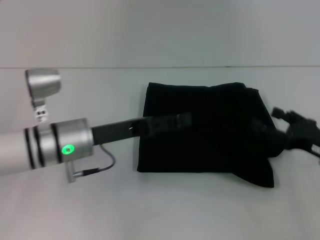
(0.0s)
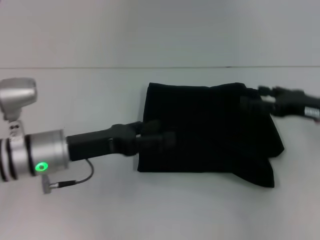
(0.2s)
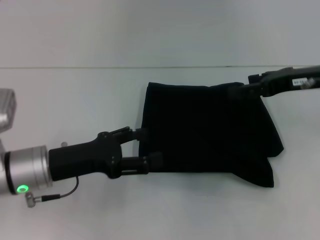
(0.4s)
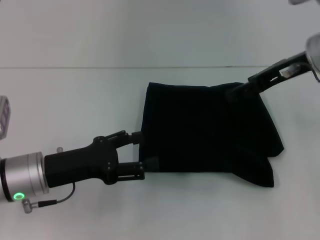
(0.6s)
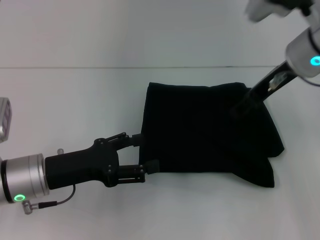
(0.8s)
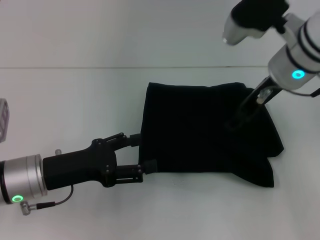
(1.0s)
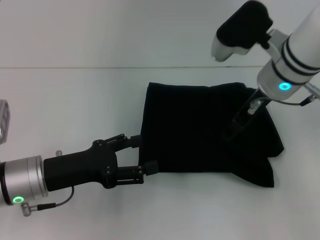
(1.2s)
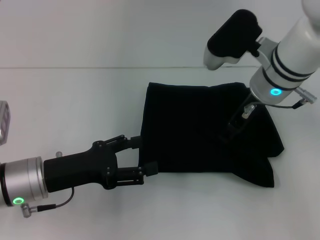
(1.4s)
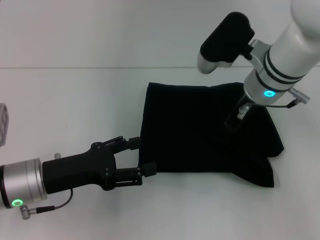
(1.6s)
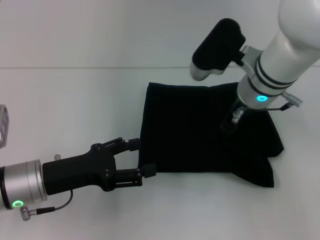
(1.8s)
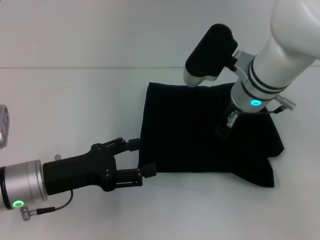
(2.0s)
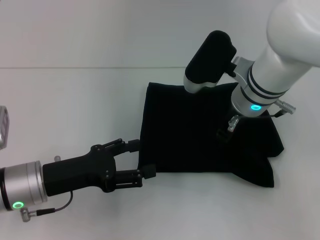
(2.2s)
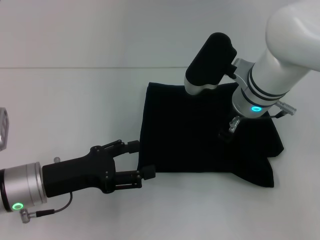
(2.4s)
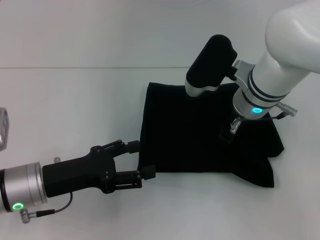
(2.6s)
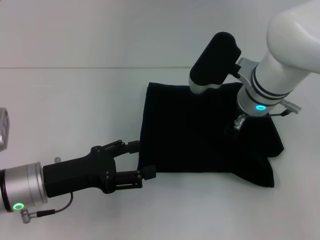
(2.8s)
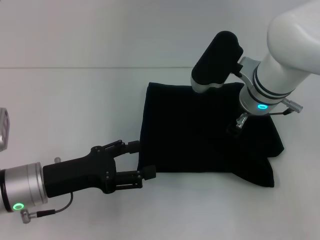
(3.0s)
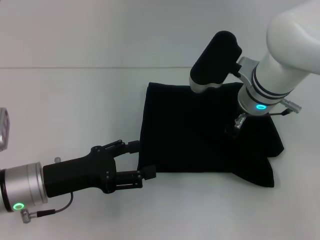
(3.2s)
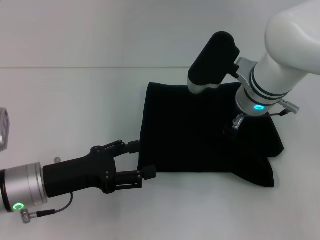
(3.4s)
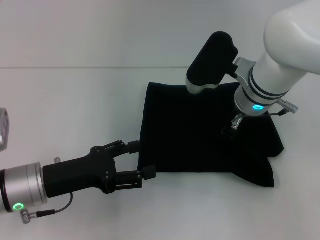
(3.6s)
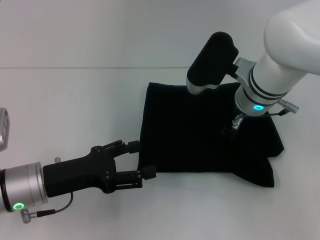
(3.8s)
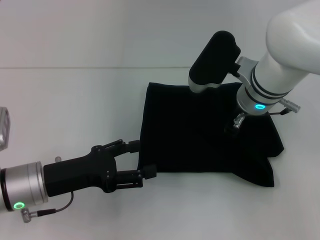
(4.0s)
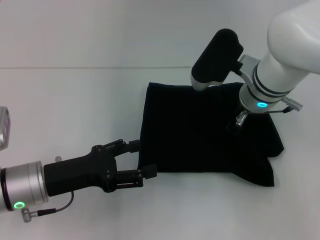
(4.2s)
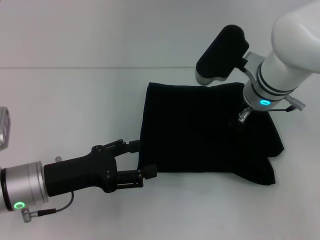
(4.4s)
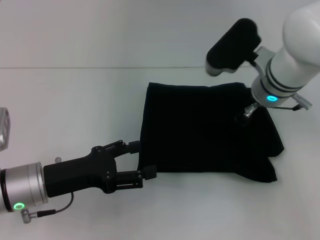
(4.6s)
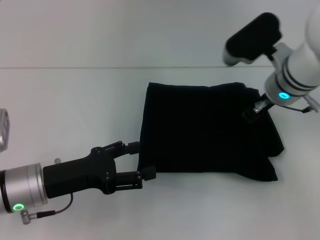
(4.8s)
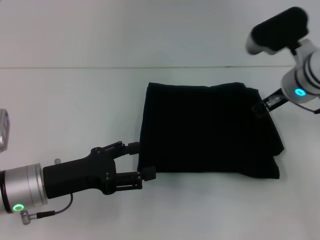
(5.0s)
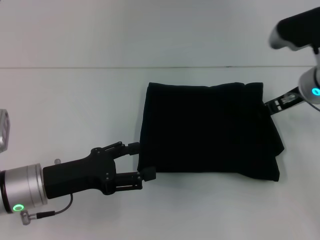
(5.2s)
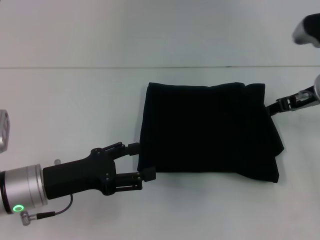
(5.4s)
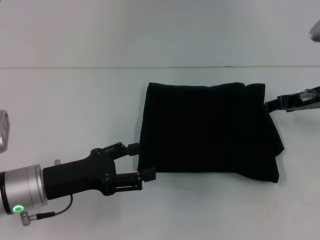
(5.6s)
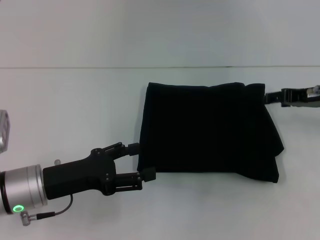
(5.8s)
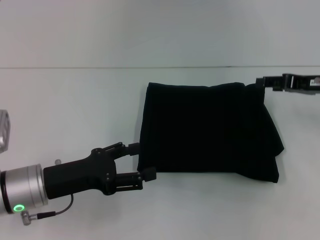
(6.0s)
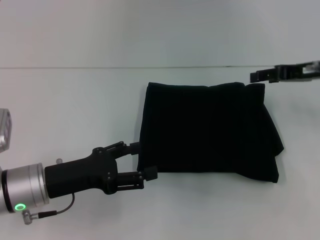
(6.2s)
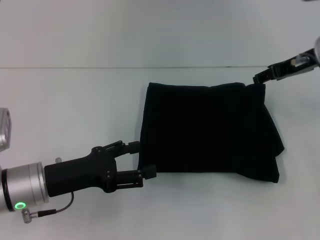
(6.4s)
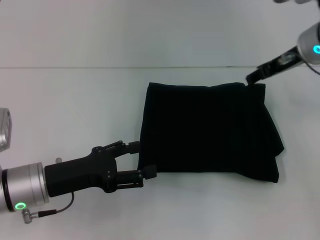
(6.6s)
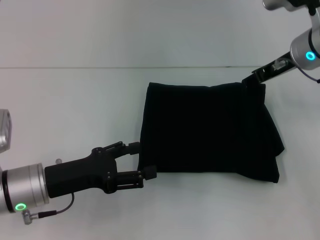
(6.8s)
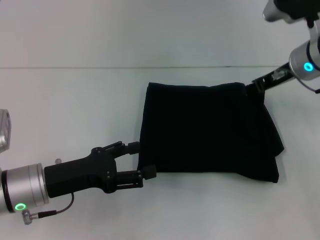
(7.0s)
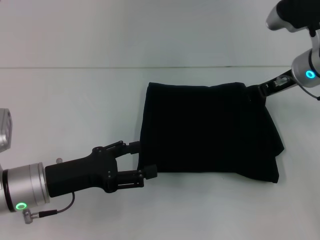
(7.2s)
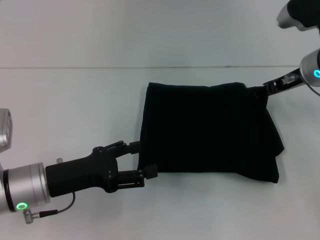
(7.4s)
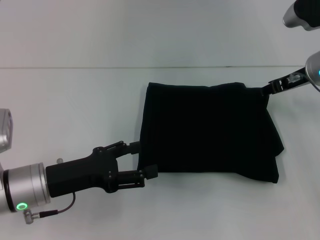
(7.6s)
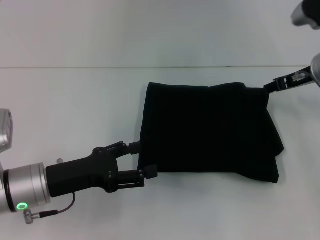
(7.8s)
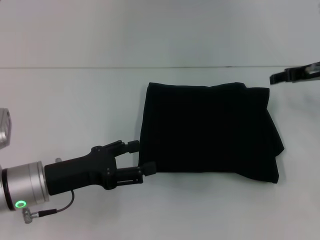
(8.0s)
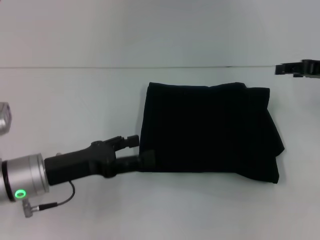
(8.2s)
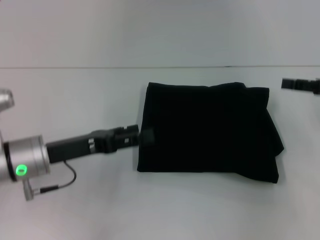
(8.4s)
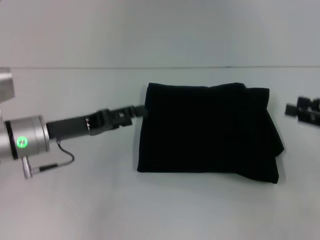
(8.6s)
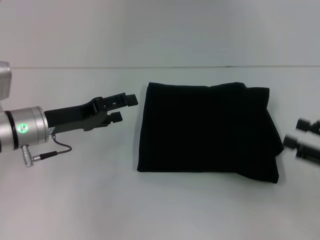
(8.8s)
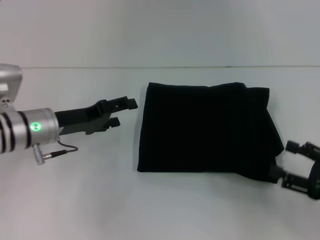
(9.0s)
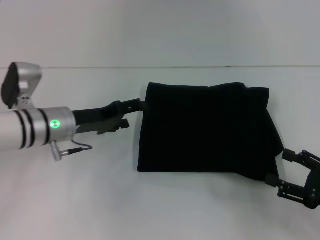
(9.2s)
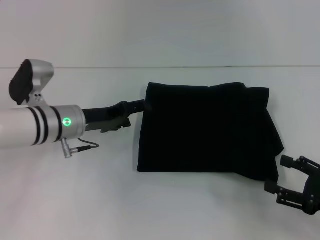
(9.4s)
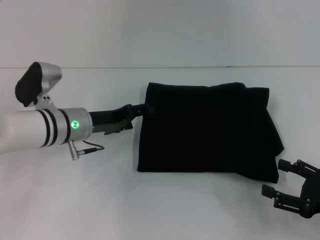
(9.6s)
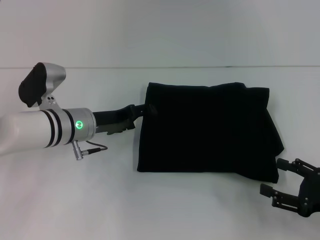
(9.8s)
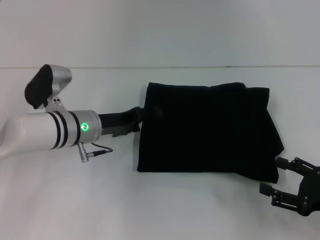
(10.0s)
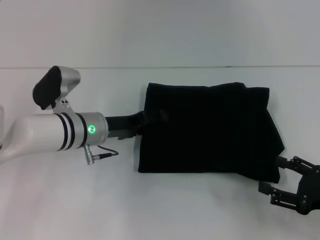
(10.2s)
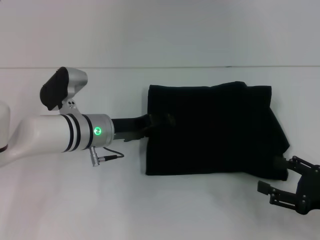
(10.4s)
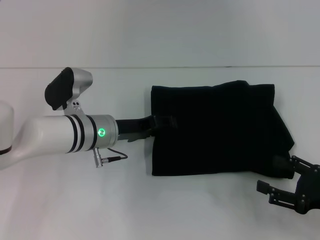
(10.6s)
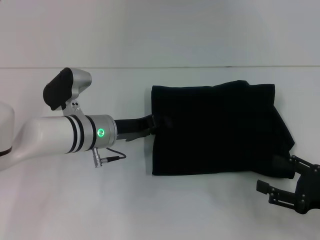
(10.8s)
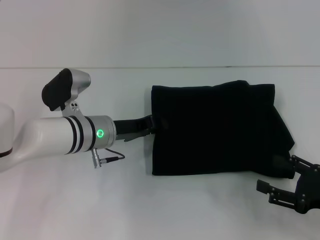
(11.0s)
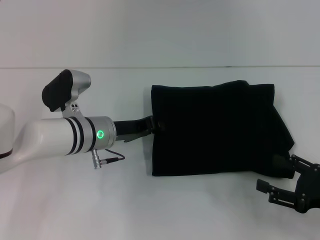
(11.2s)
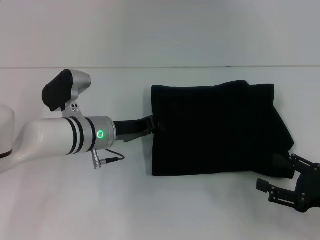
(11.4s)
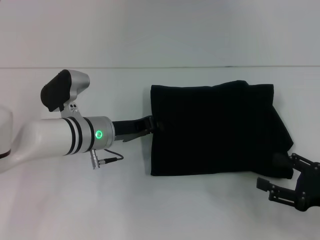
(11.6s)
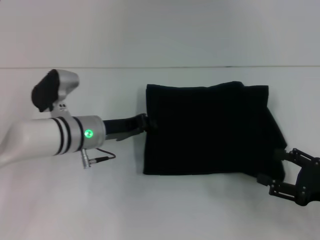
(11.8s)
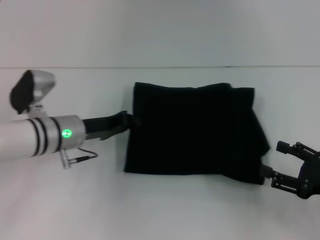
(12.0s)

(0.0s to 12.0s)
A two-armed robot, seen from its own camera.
0.0s - 1.6s: The right gripper is displaced to the left, forward and upward by some 25 cm, while the left gripper heads backward and to the left, covering about 10 cm.
1.6s - 3.0s: The grippers stay close to where they were, moving slightly.
3.0s - 4.4s: Both grippers stay about where they are.
4.4s - 6.0s: The right gripper shifts roughly 15 cm to the right.
6.0s - 7.6s: The right gripper is displaced forward and to the left by some 5 cm.
7.6s - 9.0s: The right gripper is displaced backward, downward and to the right by approximately 25 cm. Meanwhile the left gripper is displaced forward by roughly 10 cm.
9.0s - 10.4s: The left gripper travels to the right by some 10 cm.
10.4s - 12.0s: The left gripper closes.

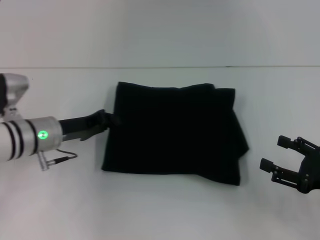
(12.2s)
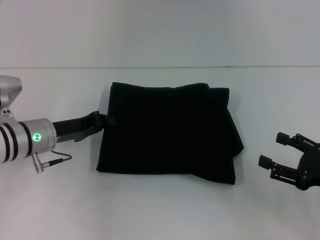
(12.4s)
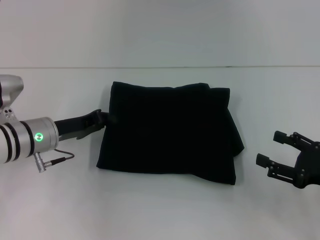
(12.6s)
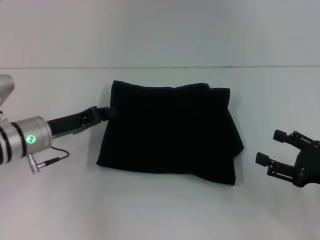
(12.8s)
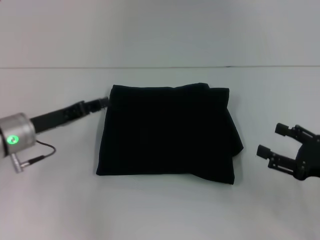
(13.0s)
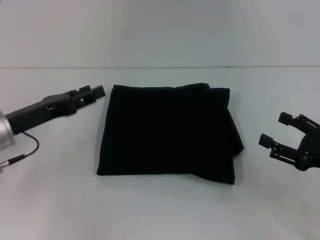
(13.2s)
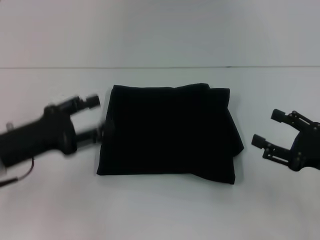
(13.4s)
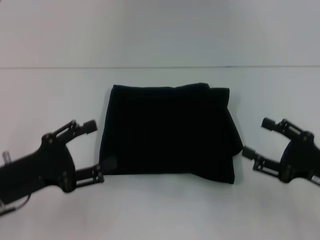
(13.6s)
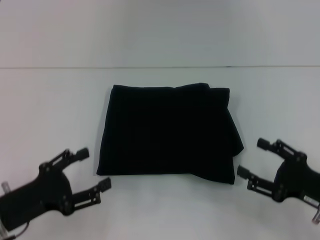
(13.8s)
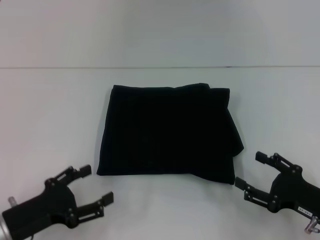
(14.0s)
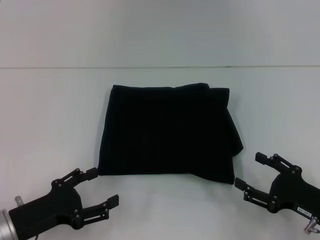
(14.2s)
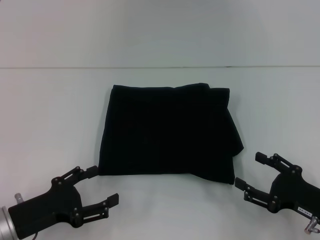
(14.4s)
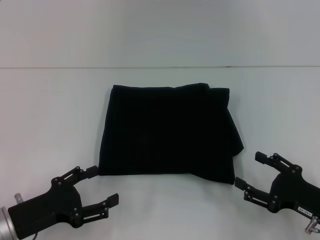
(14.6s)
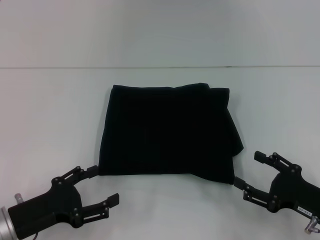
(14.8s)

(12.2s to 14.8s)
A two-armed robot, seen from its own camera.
12.2s - 13.4s: The left gripper is displaced backward by approximately 10 cm, and opens up.
13.4s - 14.8s: The right gripper moves downward, about 5 cm; the left gripper moves downward and backward, some 10 cm, and opens its fingers.

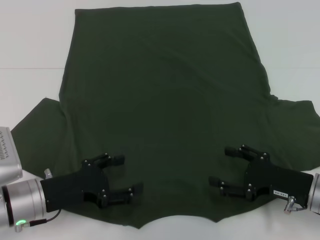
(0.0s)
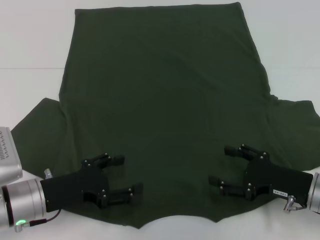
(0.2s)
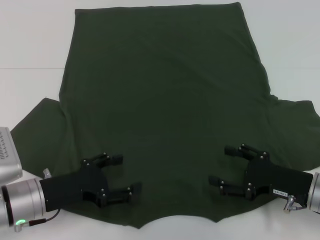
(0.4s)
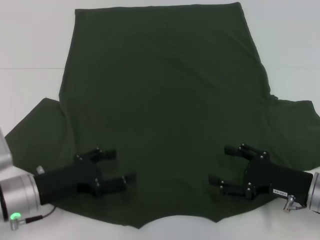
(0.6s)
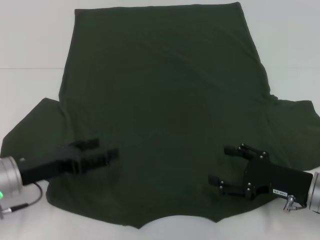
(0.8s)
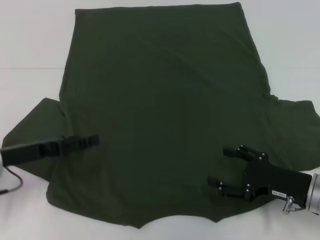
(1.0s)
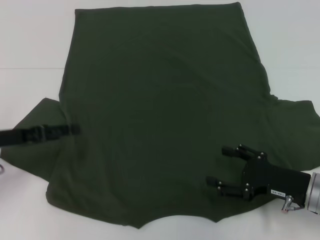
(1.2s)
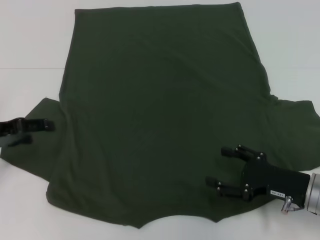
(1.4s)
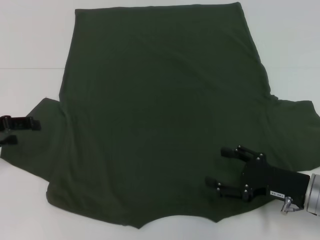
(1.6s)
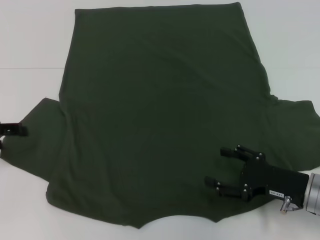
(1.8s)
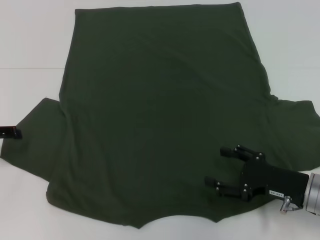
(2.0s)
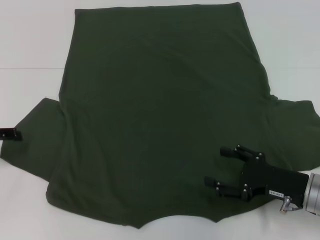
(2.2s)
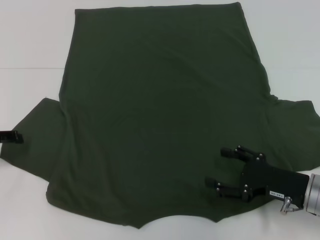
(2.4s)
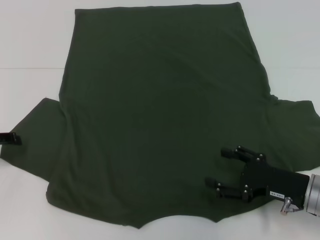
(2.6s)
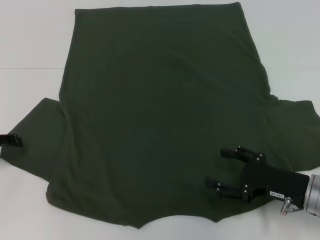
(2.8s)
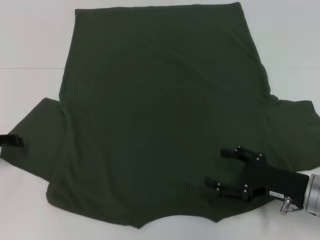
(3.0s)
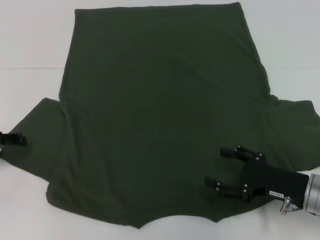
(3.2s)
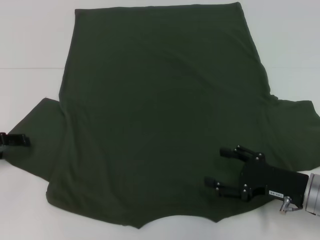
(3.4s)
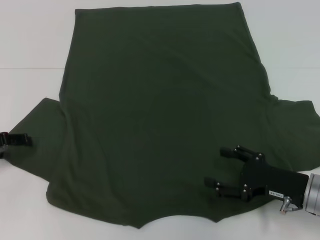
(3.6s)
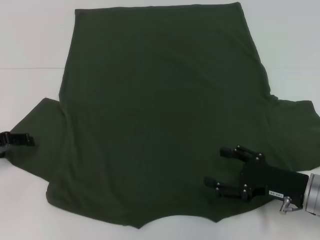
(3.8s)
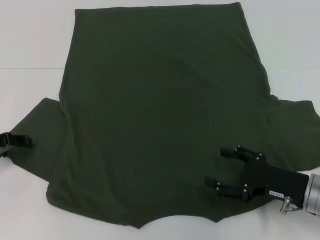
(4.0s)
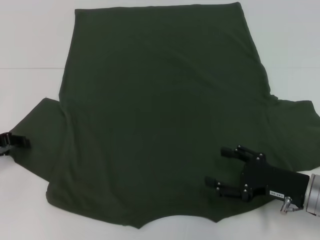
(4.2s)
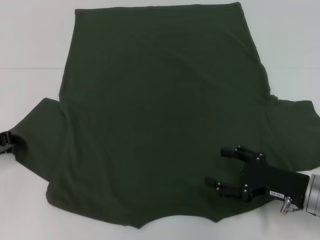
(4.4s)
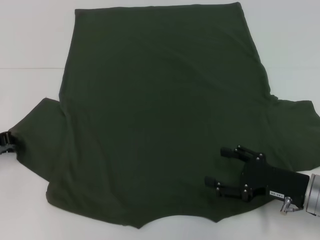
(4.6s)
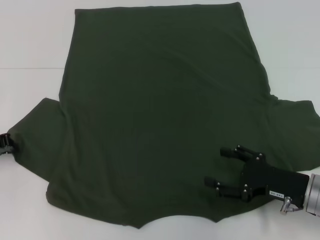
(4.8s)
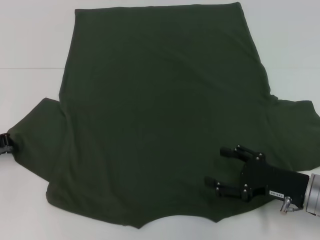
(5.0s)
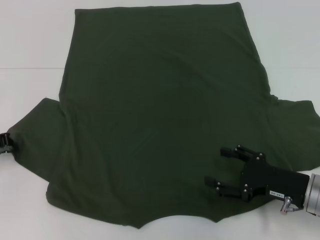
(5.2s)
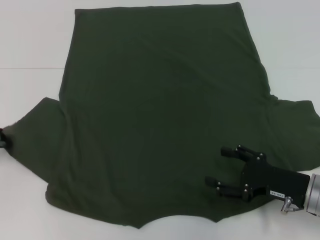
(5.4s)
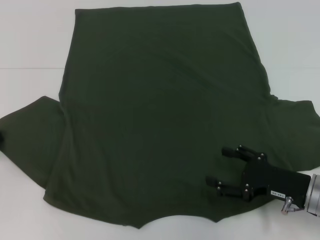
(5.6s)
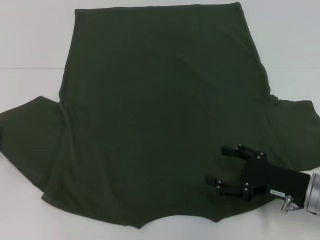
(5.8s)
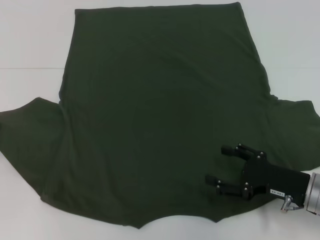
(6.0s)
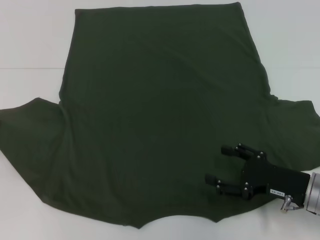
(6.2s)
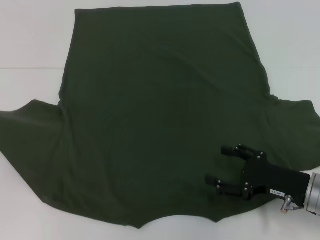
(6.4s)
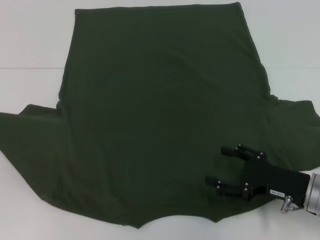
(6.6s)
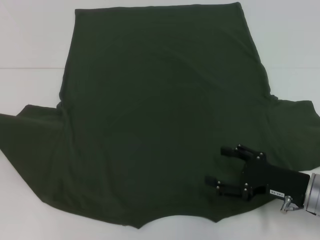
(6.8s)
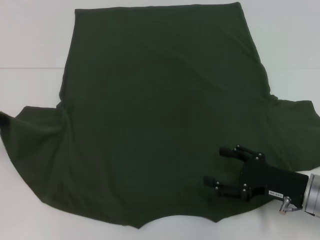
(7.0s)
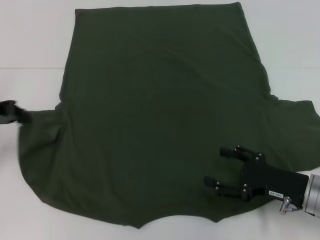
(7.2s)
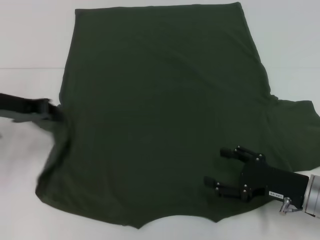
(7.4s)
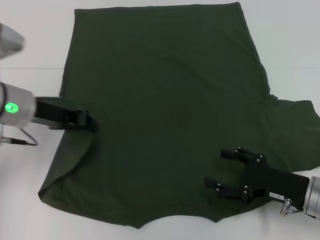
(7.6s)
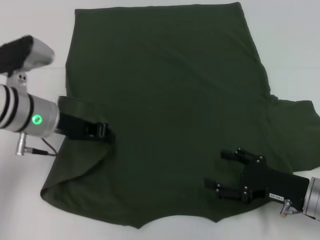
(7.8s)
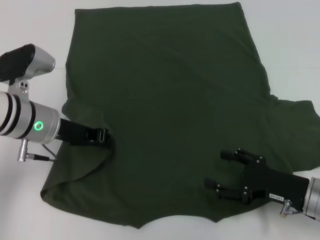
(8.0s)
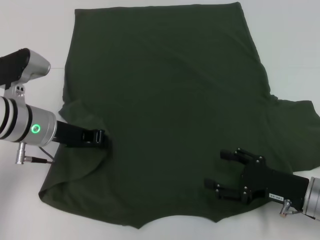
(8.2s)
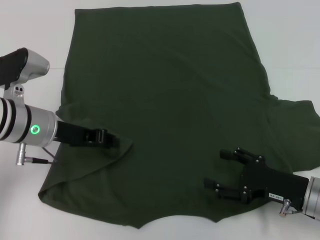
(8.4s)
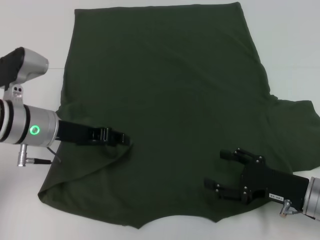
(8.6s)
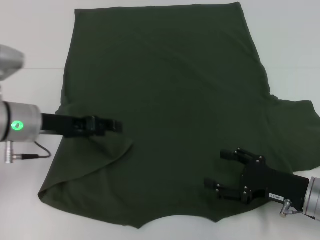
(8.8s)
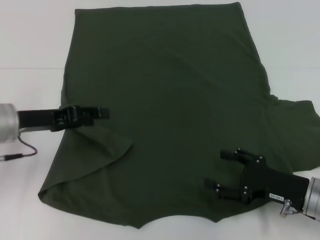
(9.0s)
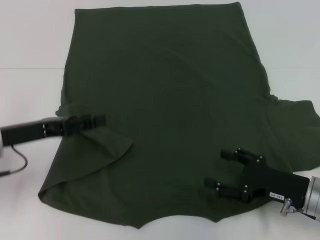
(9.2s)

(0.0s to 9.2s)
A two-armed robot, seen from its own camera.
Step, 0.0s - 9.0s: Fold the bottom left sleeve with your left hand.
0.0s - 1.6s: The left gripper shifts about 15 cm to the left, upward and forward.
4.6s - 6.2s: The left gripper ends up some 5 cm from where it was, and closes.
6.2s - 7.6s: The left gripper heads to the right, covering about 15 cm.
7.6s - 9.2s: The left gripper shifts some 5 cm backward, and opens its fingers.
